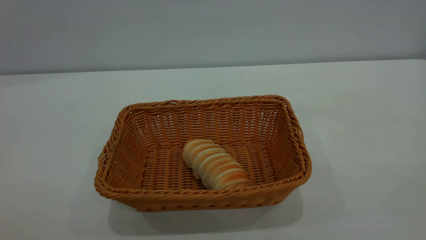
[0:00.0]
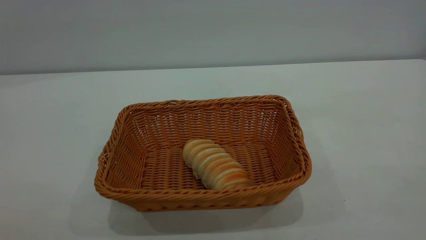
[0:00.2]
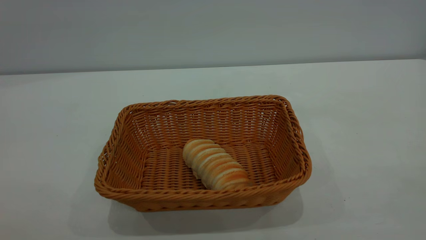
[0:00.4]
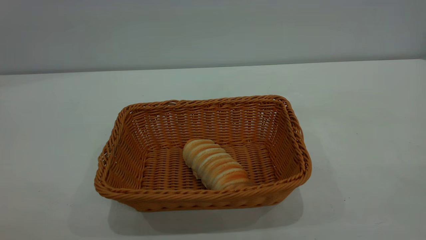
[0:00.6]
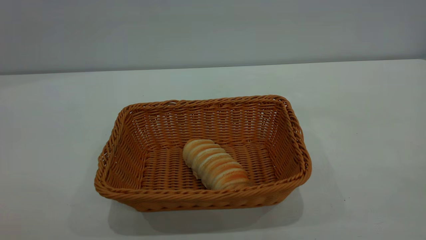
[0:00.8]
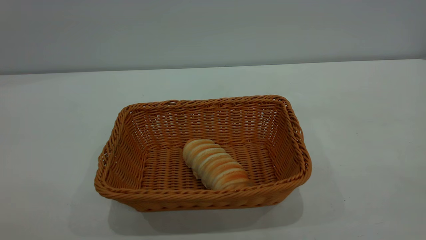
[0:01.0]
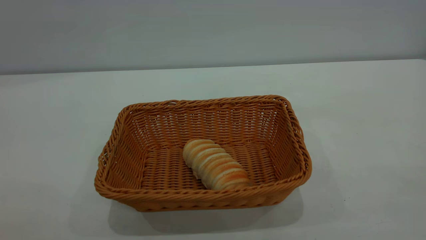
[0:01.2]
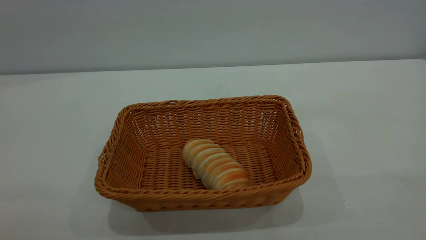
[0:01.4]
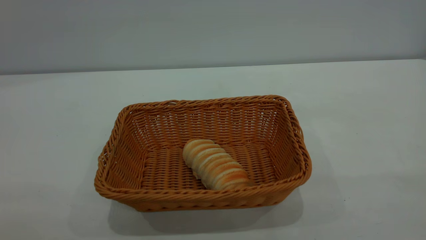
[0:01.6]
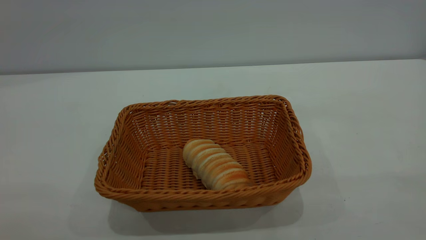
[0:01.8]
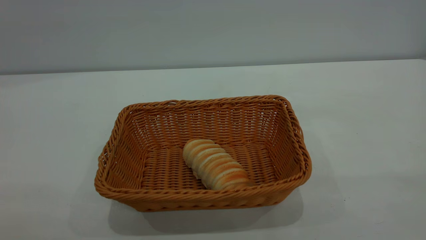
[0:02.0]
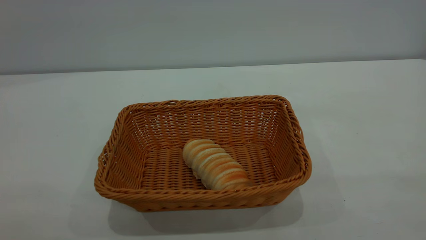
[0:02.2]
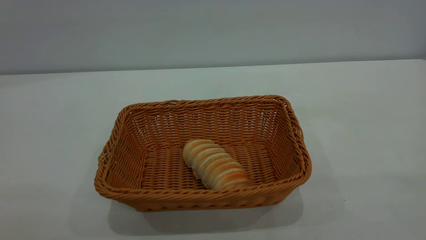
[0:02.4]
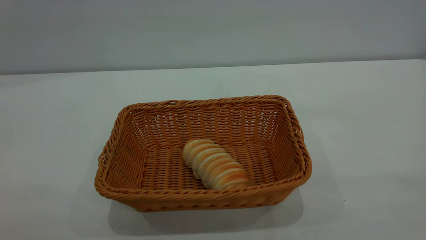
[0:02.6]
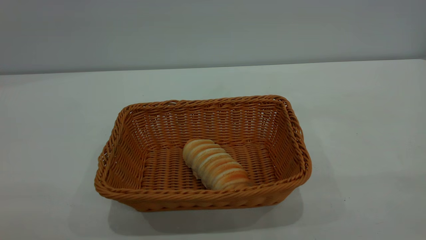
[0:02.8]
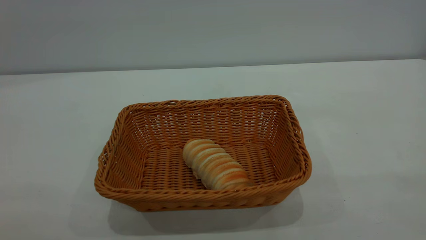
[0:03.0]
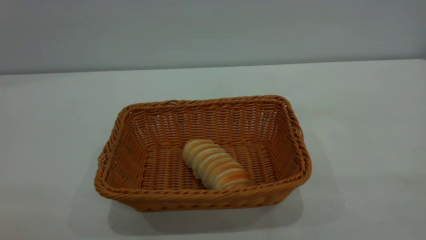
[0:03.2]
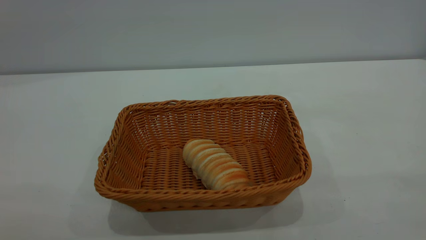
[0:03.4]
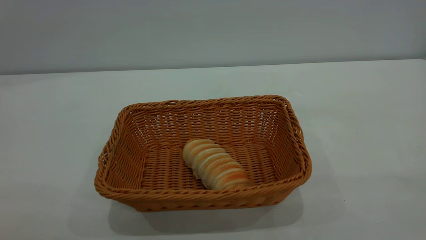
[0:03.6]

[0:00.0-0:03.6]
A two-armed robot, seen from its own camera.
Task of the whole recording: One hand grasps the yellow basket and places it in the middle of the table, while the other hand picks up the long bread and puts it into the yellow basket.
0:01.8 to 0:03.6: The two grippers keep their place.
